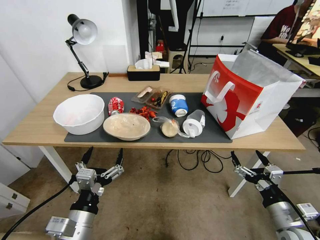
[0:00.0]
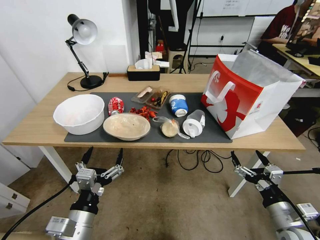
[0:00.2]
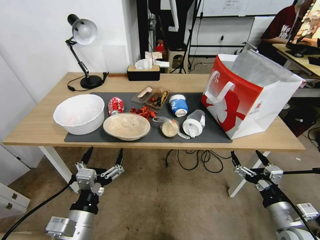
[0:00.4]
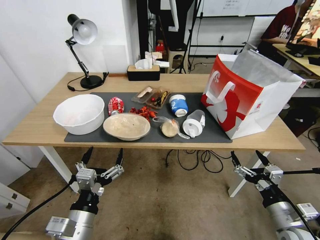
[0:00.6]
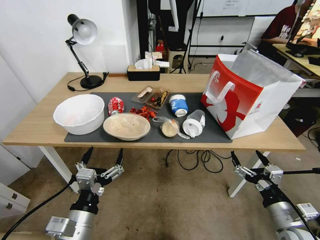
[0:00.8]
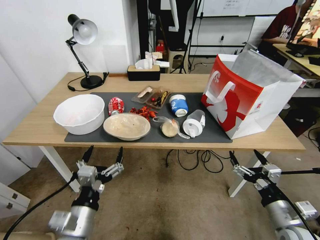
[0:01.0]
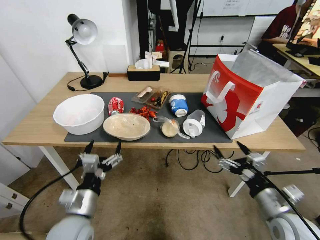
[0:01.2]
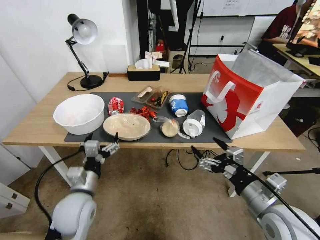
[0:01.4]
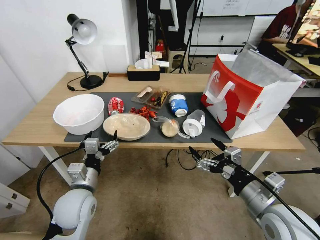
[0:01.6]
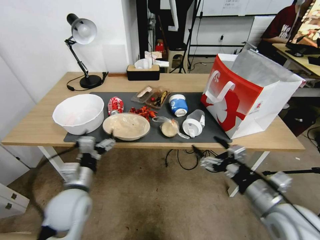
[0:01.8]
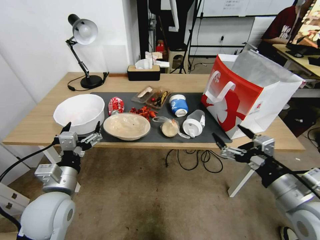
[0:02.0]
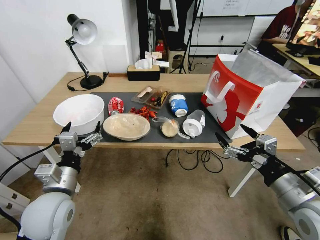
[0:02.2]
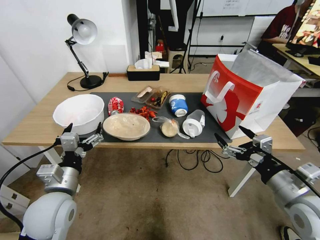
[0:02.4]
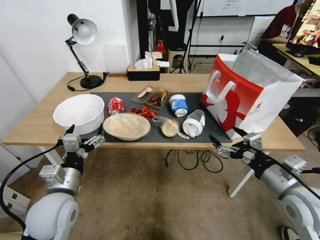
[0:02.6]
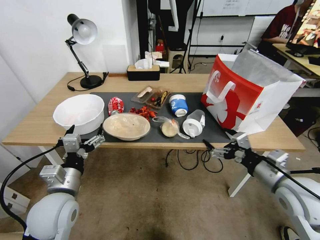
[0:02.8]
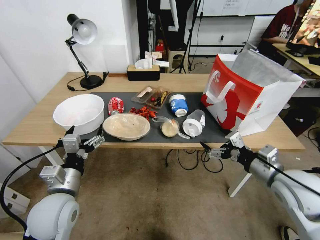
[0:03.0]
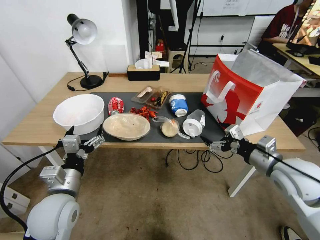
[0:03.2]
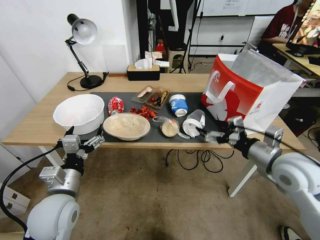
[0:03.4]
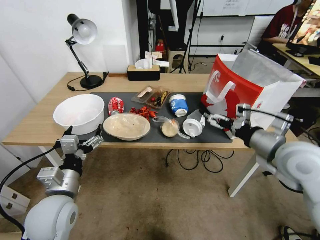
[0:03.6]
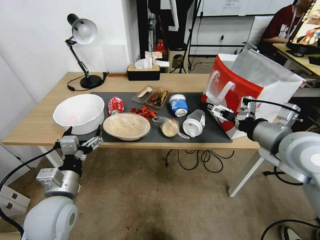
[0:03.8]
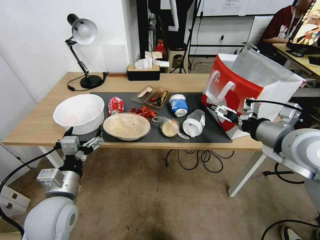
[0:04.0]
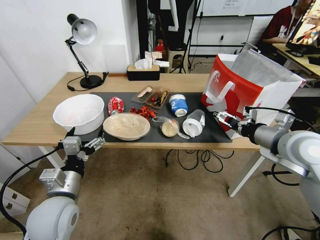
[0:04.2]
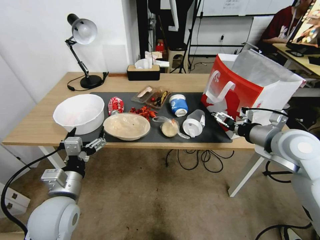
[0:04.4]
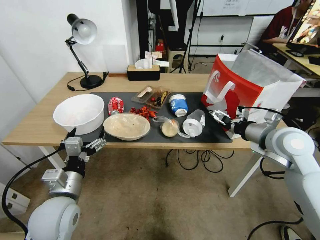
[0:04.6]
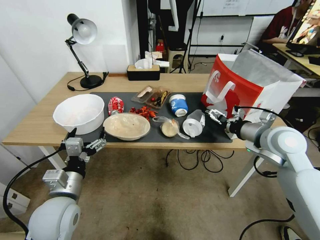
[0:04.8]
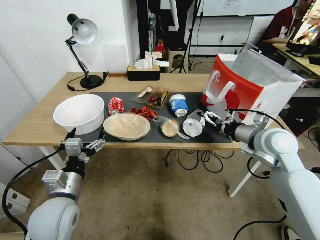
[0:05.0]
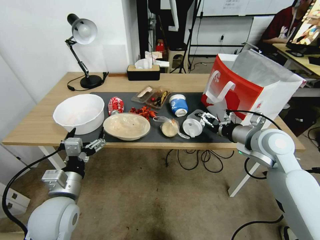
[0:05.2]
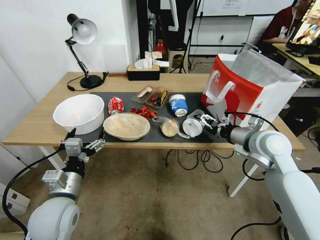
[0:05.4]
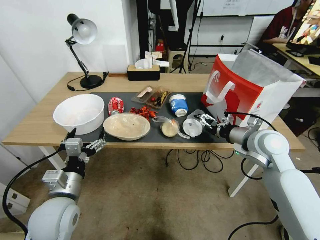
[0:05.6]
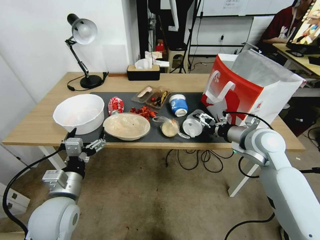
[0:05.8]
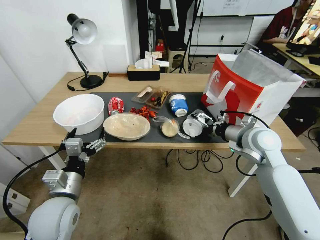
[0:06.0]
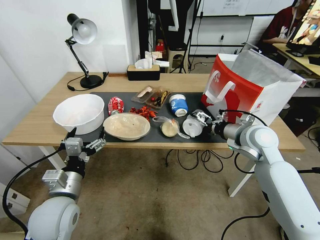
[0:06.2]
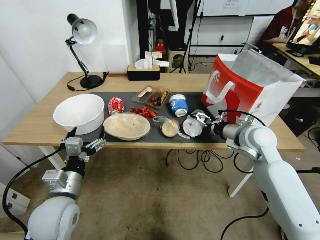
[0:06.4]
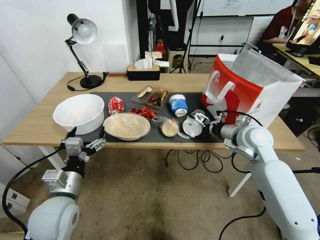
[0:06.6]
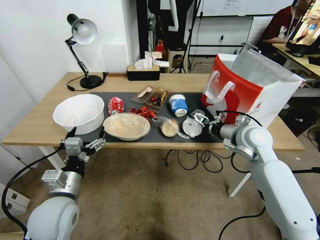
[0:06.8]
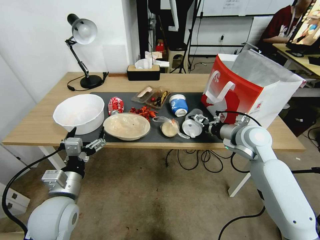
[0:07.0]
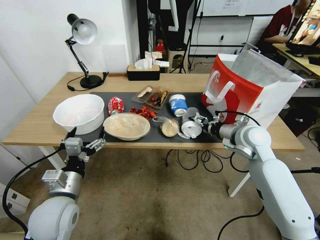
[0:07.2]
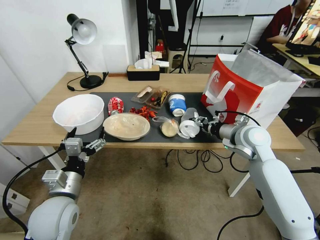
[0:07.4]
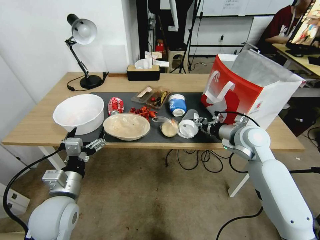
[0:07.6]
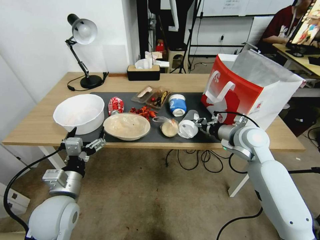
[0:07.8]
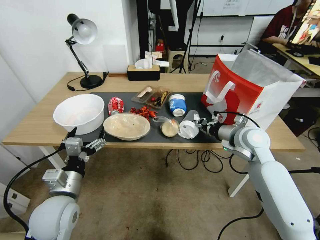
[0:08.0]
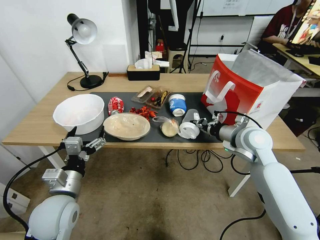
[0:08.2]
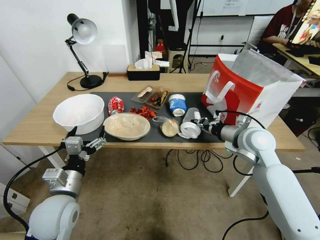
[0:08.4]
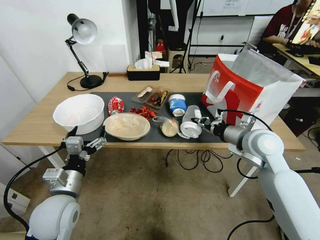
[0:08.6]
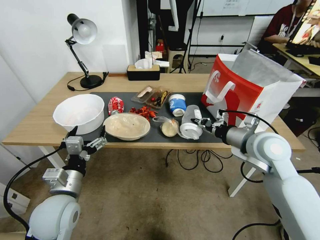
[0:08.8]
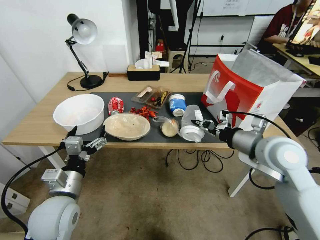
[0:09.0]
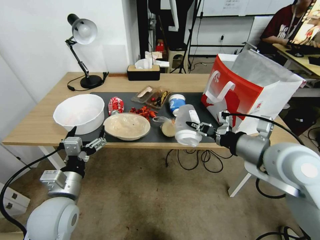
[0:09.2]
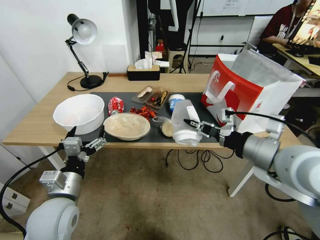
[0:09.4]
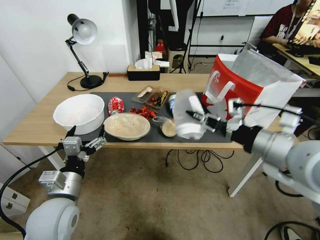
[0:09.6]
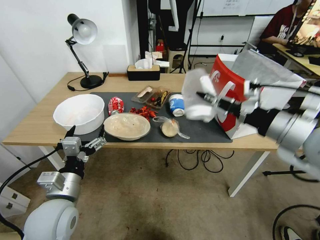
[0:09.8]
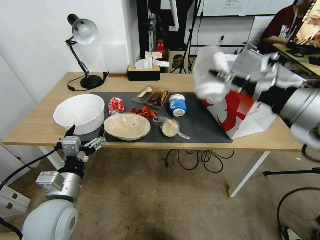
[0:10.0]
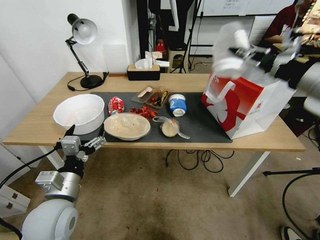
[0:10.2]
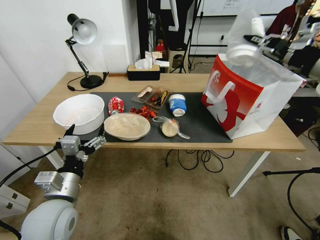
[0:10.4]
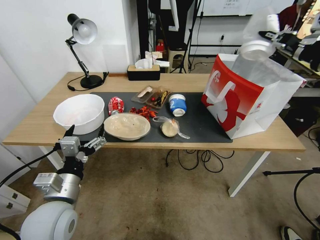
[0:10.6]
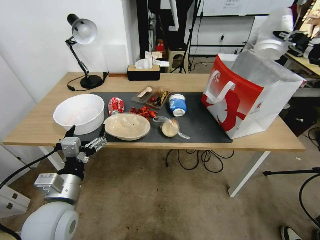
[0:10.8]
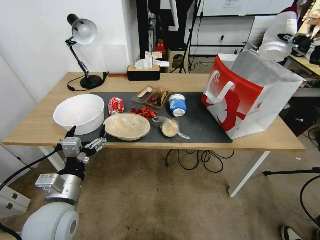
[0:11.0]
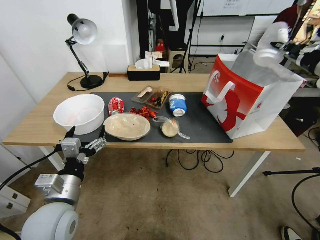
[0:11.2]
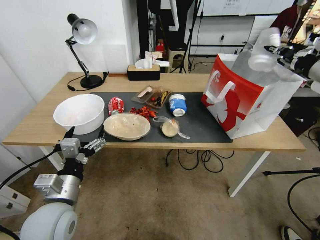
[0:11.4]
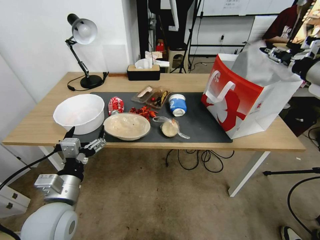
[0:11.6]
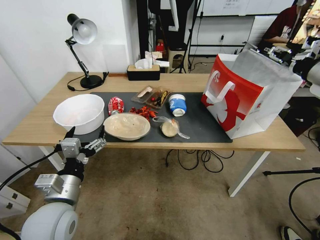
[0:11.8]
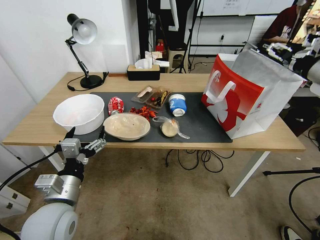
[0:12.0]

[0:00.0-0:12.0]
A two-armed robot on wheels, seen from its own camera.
0:01.6 to 0:03.0: The left gripper moves about 5 cm, while the right gripper moves forward and to the right, about 10 cm.
0:03.0 to 0:04.4: The right gripper goes some 10 cm forward and upward.
0:04.4 to 0:06.0: The right gripper shifts about 5 cm forward.
0:06.0 to 0:07.6: The right gripper closes up.
0:07.6 to 0:09.0: The right gripper goes some 10 cm backward and upward.
0:09.0 to 0:10.4: The right gripper moves upward and to the right, about 20 cm.
0:10.4 to 0:12.0: The right gripper shifts about 10 cm forward and to the right, and opens up.

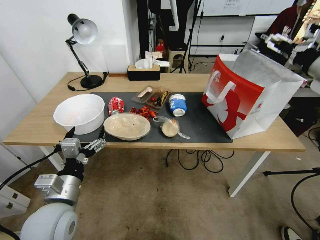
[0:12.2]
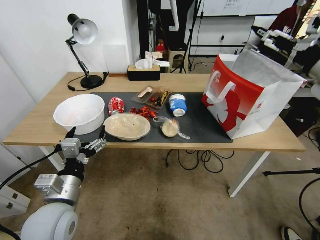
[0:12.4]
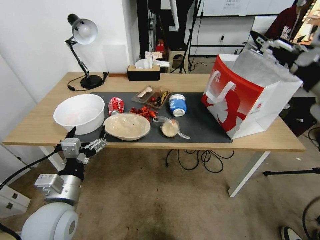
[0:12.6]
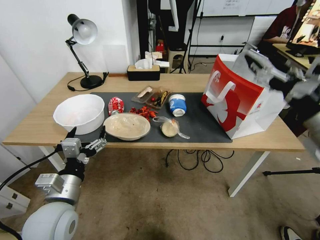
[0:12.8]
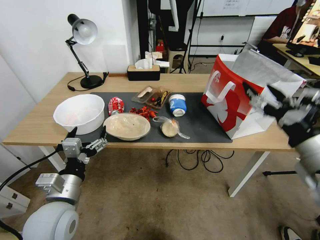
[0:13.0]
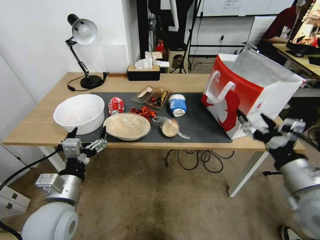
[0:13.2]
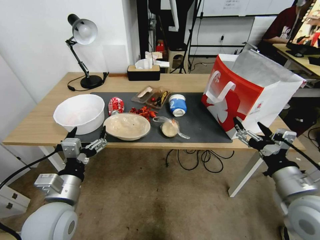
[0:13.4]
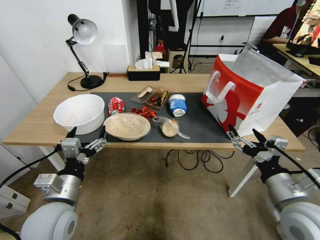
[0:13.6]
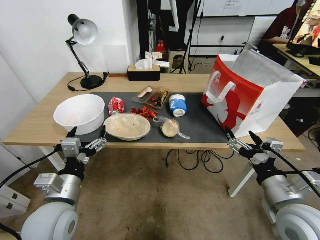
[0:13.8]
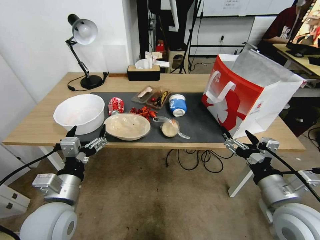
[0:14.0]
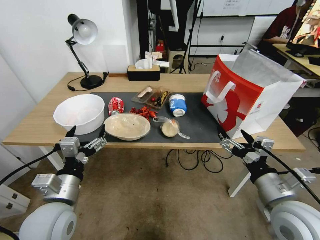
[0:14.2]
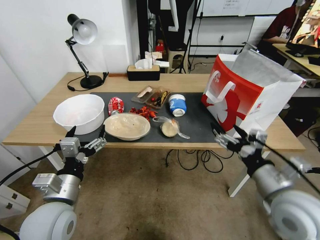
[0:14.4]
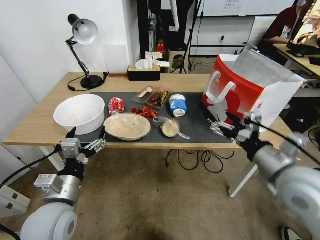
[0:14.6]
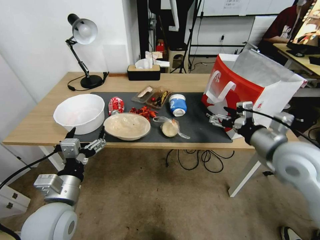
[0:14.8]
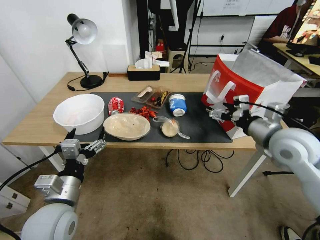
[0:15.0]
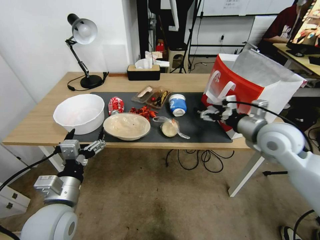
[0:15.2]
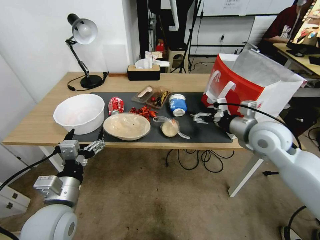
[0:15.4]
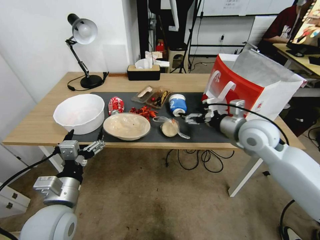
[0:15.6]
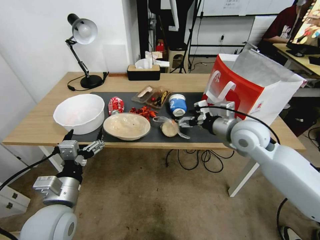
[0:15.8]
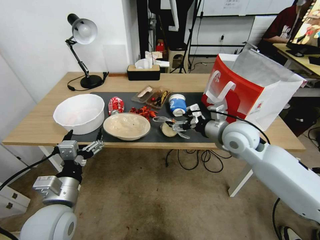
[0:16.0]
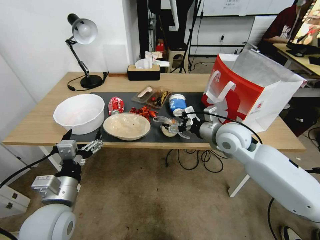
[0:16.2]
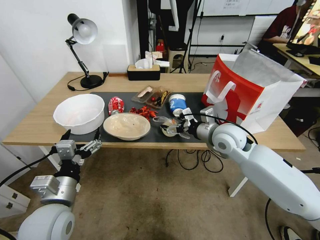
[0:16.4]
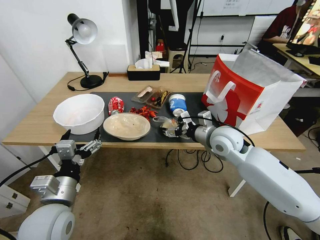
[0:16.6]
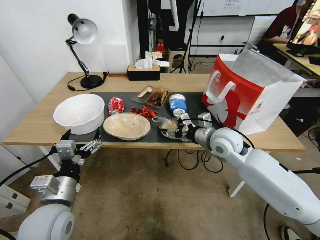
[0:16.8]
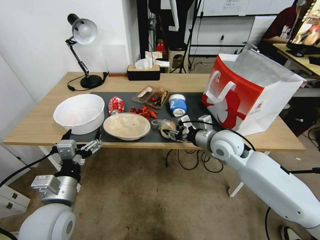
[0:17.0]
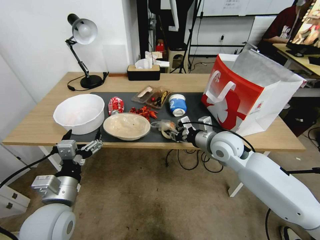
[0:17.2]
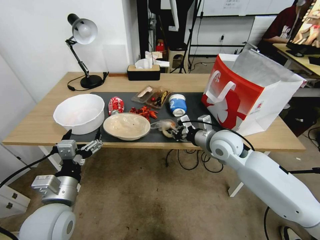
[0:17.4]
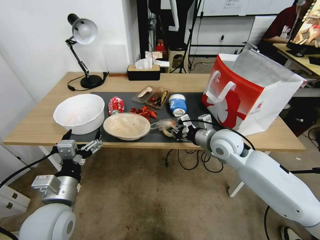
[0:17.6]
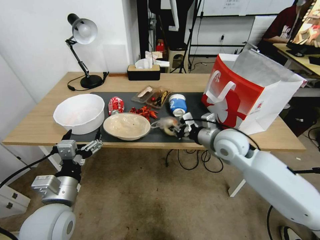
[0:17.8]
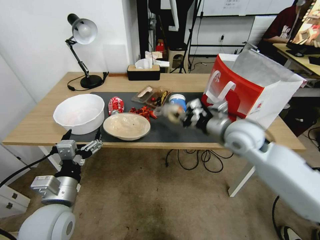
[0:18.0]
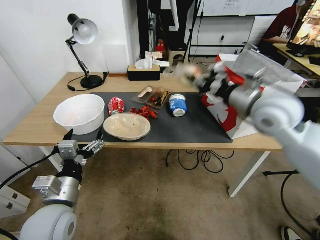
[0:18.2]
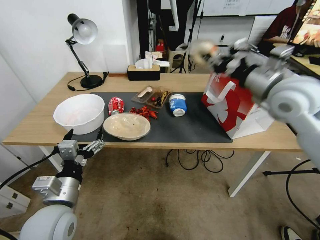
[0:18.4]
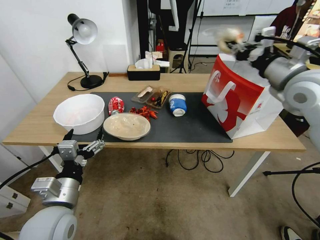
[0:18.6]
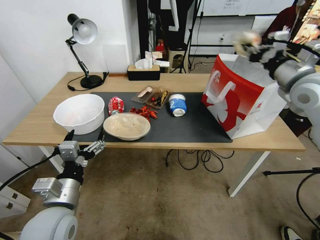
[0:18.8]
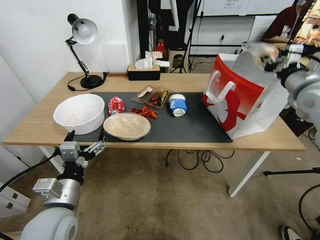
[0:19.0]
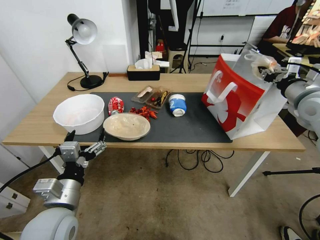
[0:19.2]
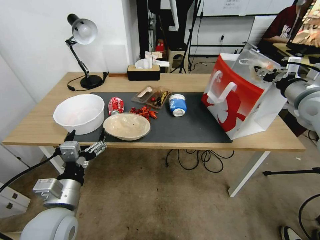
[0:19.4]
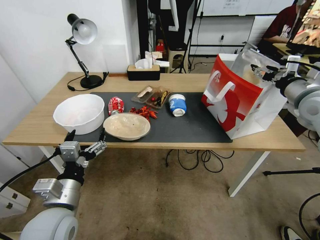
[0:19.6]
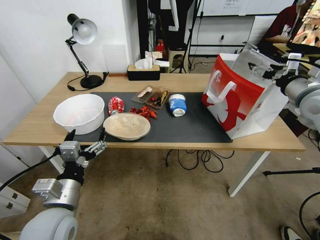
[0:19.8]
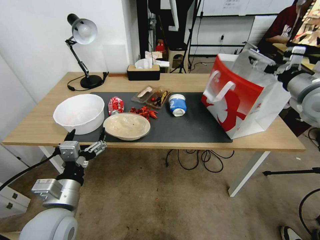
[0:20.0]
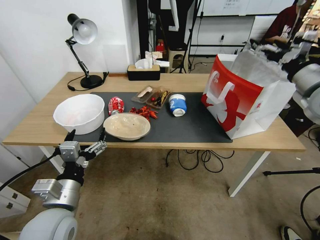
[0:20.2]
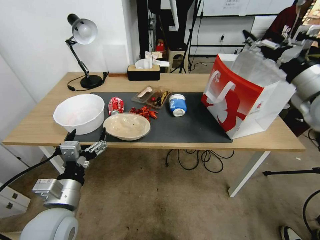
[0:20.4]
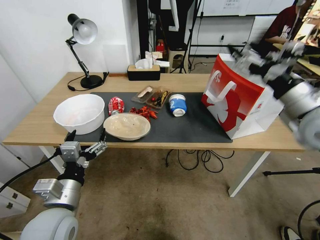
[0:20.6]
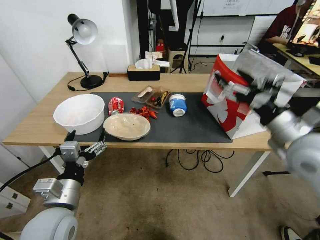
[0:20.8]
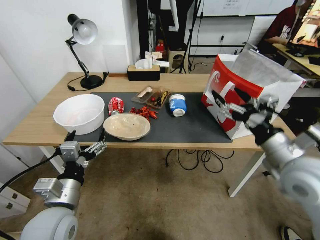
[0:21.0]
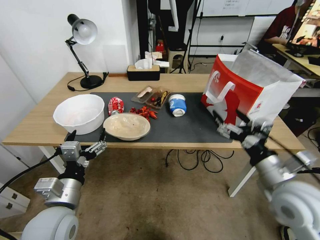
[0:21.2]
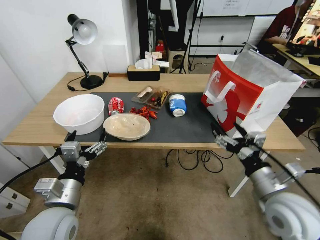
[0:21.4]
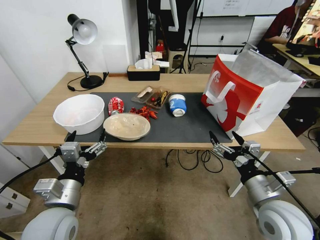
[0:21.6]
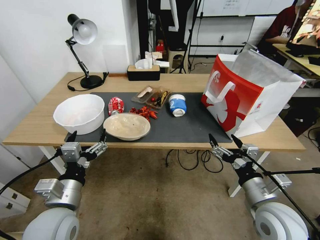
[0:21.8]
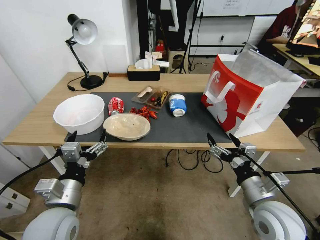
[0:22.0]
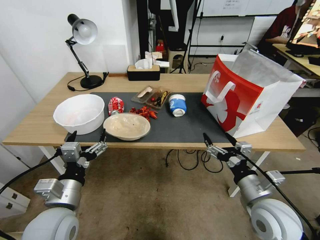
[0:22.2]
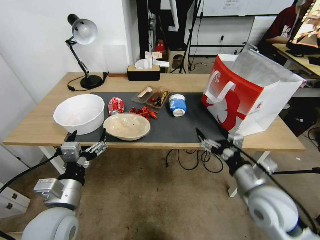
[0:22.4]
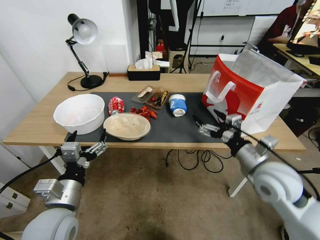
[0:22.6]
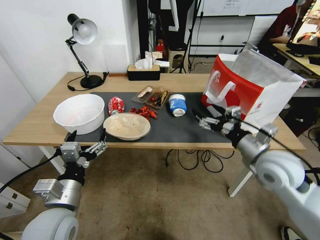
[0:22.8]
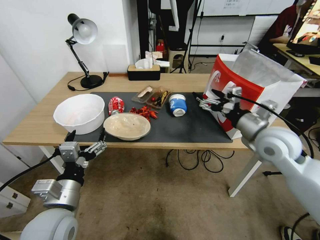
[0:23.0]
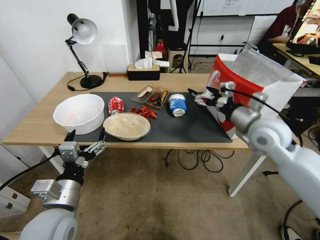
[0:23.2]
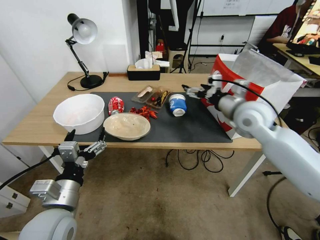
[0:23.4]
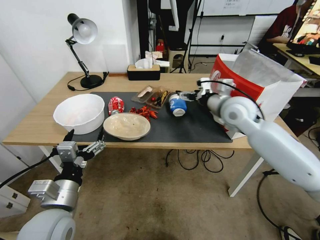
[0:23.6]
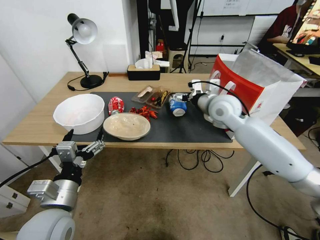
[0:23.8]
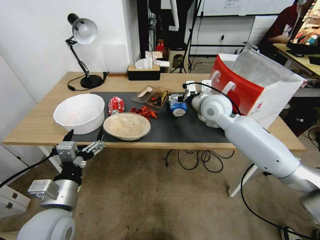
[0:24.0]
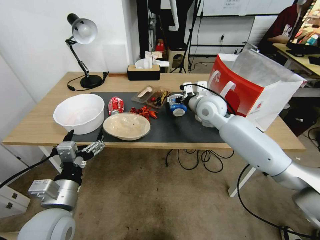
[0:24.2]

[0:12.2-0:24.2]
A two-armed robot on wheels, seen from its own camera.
0:12.2 to 0:13.8: The right gripper heads downward, backward and to the left, covering roughly 35 cm.
0:13.8 to 0:15.2: The right gripper moves forward, about 20 cm.
0:15.2 to 0:16.6: The right gripper moves to the left and downward, about 10 cm.
0:16.6 to 0:18.2: The right gripper travels upward and to the right by about 15 cm, and closes up.
0:18.2 to 0:19.8: The right gripper shifts about 15 cm to the right, and opens up.
0:19.8 to 0:21.2: The right gripper is displaced backward, downward and to the left by roughly 25 cm.
0:21.2 to 0:22.6: The right gripper travels forward by roughly 5 cm, and moves approximately 10 cm downward and comes back.
0:22.6 to 0:24.2: The right gripper moves forward and to the left, roughly 25 cm.
